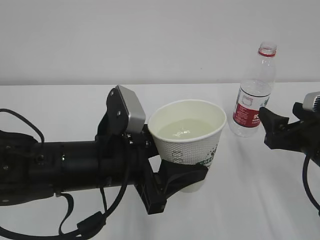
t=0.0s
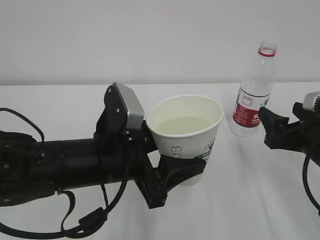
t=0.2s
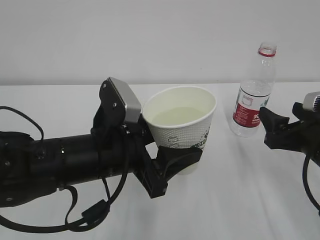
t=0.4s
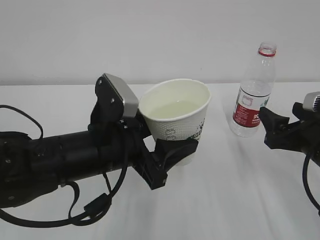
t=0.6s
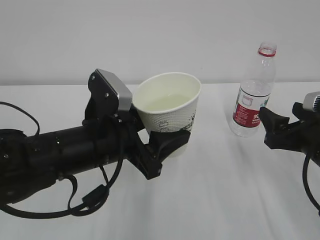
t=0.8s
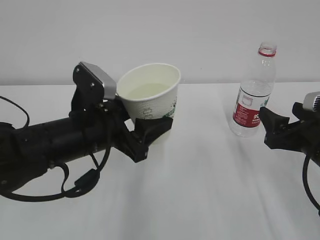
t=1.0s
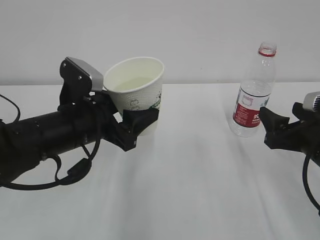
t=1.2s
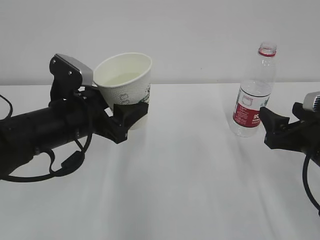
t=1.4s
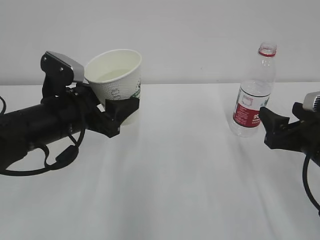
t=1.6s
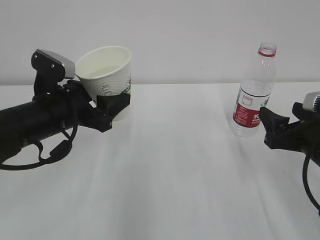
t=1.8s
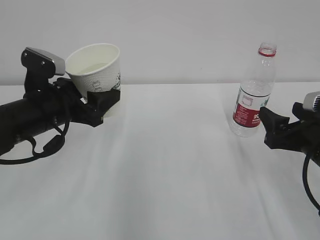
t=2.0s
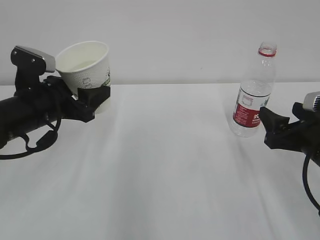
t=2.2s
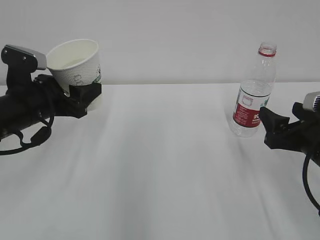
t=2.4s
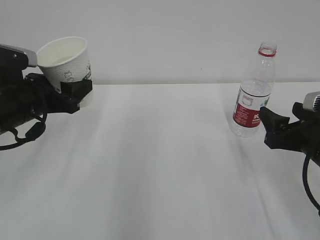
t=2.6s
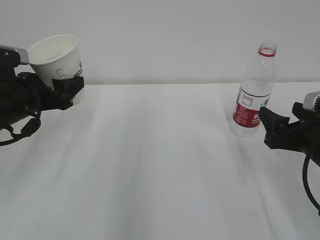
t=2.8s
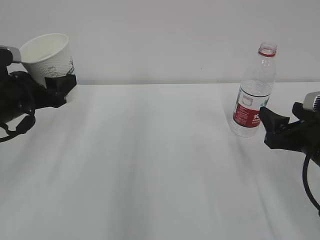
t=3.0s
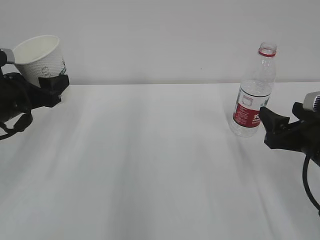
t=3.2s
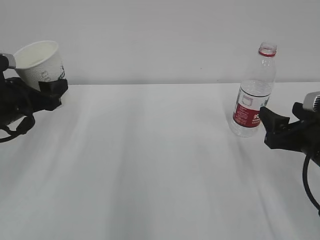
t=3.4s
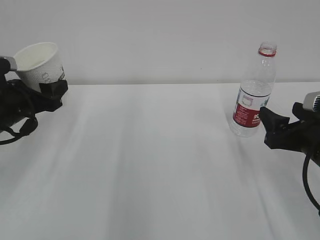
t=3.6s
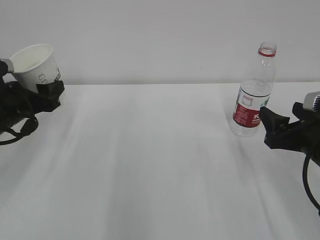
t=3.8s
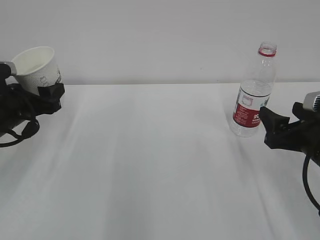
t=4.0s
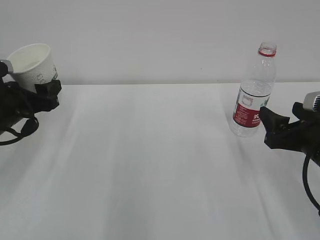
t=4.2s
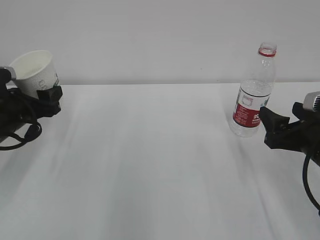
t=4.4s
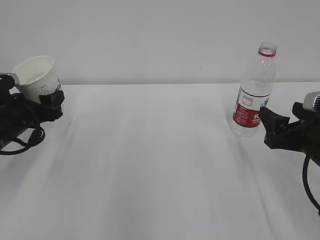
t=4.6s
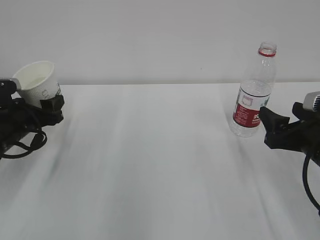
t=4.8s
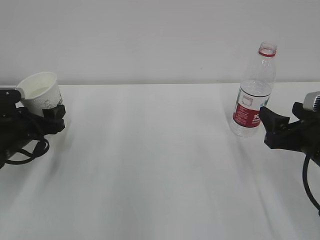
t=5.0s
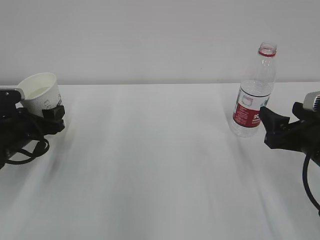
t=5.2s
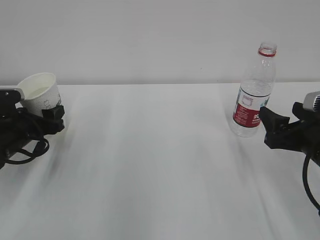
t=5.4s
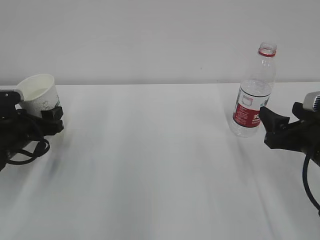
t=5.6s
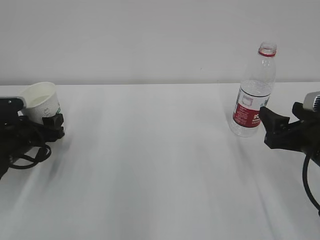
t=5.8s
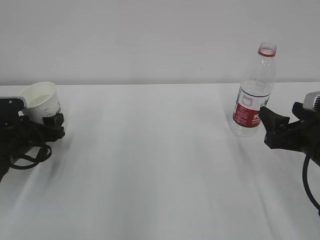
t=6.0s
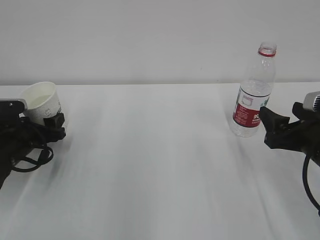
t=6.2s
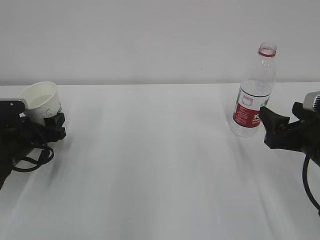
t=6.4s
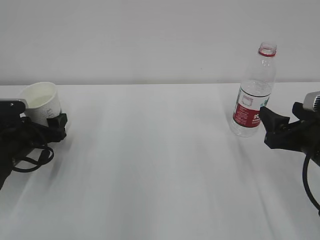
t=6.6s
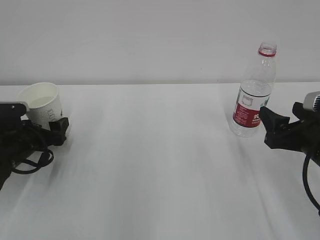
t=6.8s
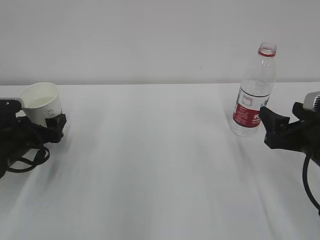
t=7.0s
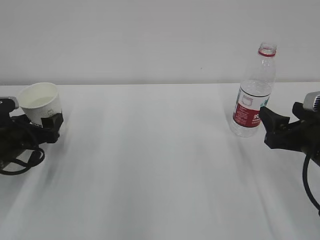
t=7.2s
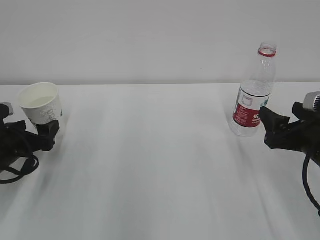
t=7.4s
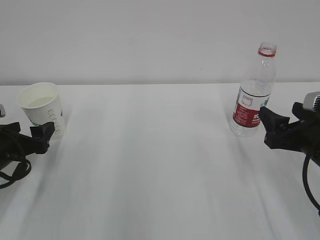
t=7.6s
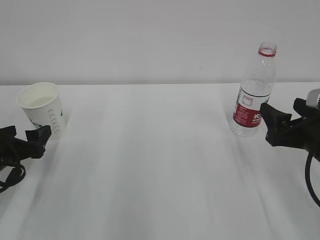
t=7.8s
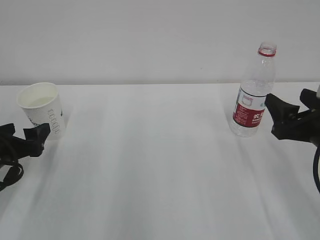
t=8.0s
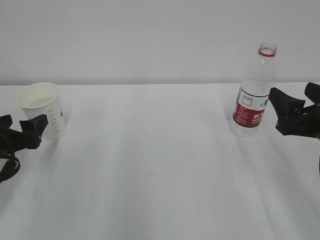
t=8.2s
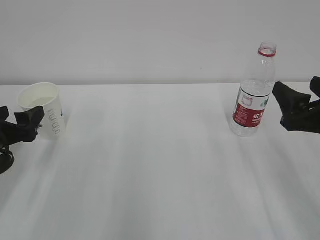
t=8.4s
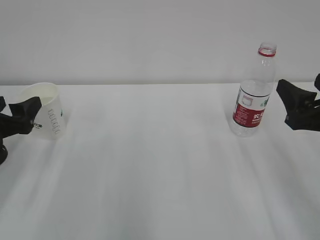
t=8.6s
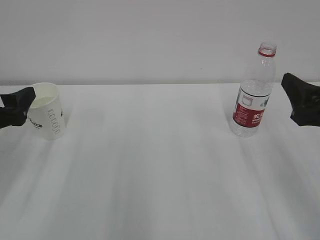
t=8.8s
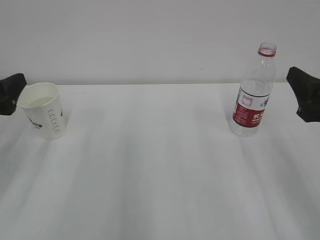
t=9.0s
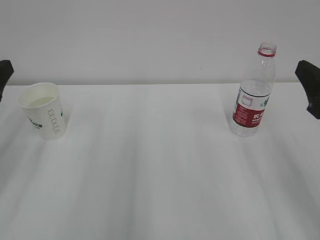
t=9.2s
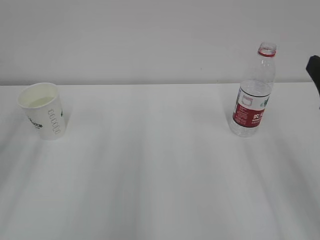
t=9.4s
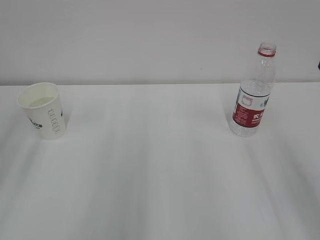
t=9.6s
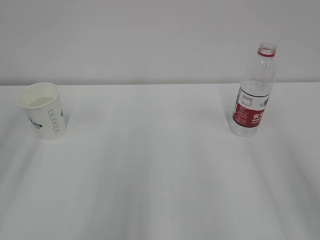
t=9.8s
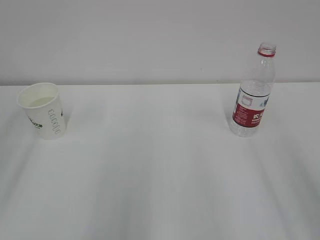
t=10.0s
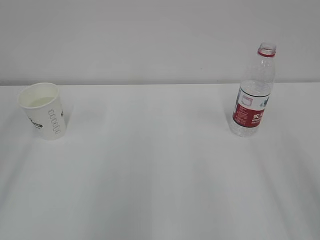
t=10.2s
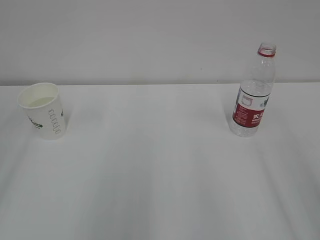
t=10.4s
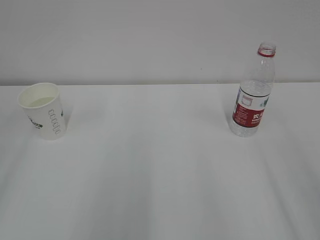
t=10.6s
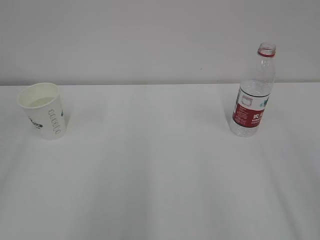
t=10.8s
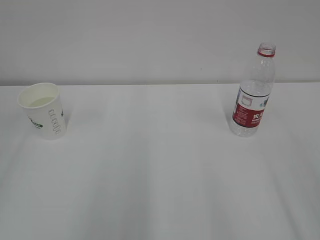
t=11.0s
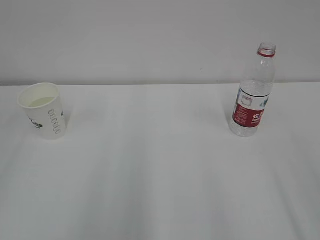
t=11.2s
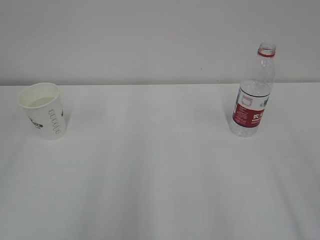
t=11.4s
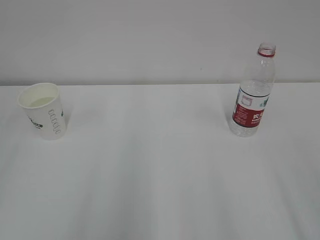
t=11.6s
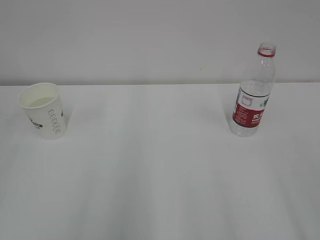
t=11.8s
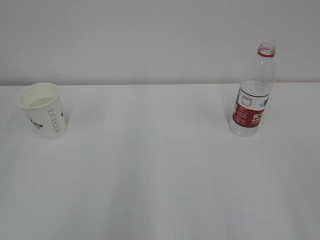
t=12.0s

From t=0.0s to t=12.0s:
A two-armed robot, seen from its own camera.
From t=0.0s to t=1.6s: The left gripper heads to the left and forward, covering some 10 cm.
From t=1.6s to t=3.0s: The left gripper shifts some 10 cm to the left.
From t=3.0s to t=4.4s: The left gripper moves roughly 5 cm.
From t=4.4s to t=6.0s: The left gripper heads downward, covering roughly 5 cm.
From t=6.0s to t=7.6s: The left gripper heads backward, covering about 5 cm, and opens up.
From t=7.6s to t=9.0s: The grippers both shift upward by about 10 cm.
From t=9.0s to t=10.4s: The two grippers go approximately 15 cm backward and upward.
